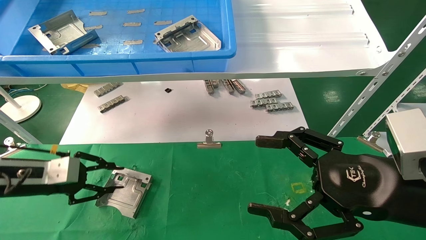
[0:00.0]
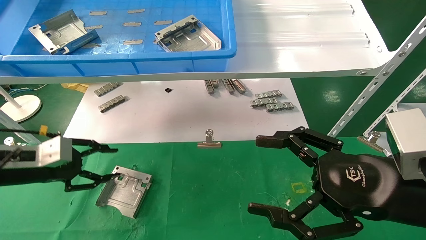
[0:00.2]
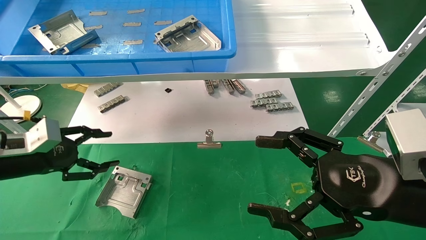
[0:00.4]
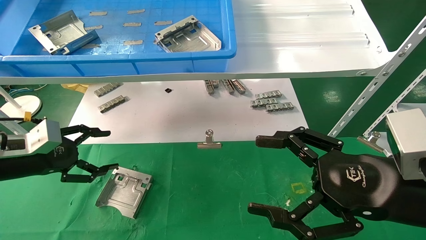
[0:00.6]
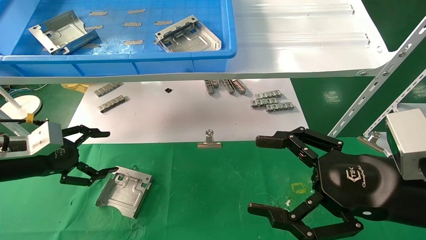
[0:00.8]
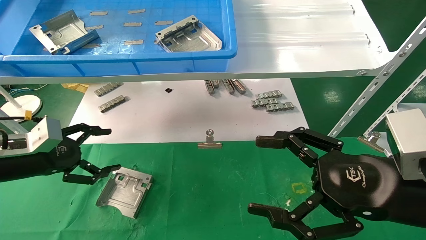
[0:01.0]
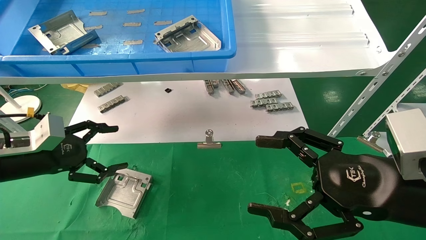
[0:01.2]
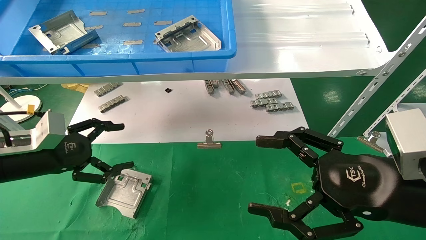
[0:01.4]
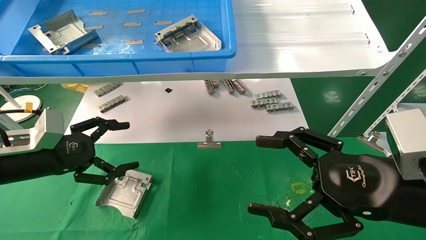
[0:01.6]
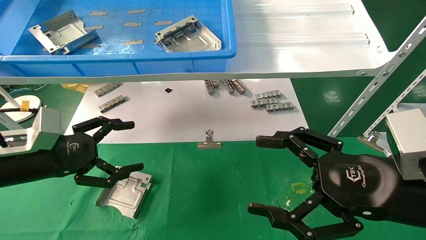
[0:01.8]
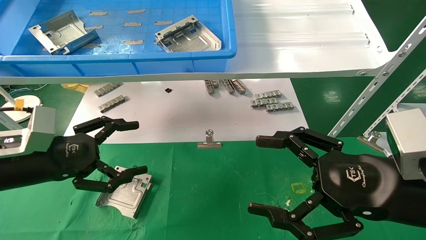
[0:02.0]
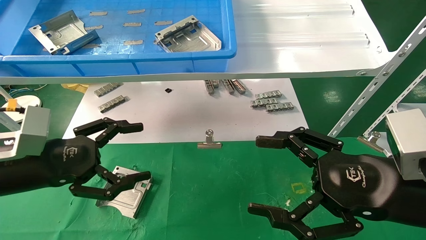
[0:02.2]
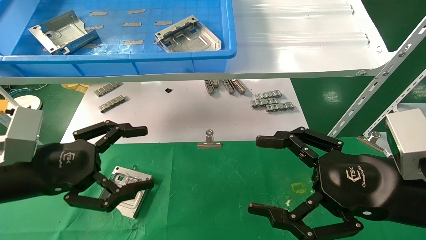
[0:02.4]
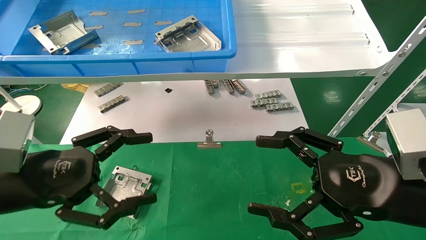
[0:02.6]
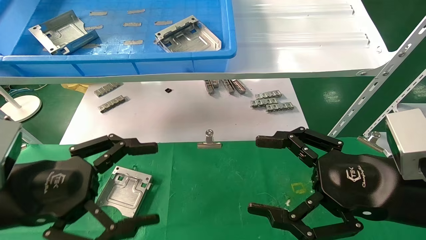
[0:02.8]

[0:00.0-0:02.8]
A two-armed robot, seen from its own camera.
Task of the whole recording: use the mechanical arm to pick up the parts and place them on the table.
0:00.0 to 0:01.4: The left gripper opens.
0:01.4 to 0:02.8: The left gripper heads backward and to the right, covering approximately 15 cm.

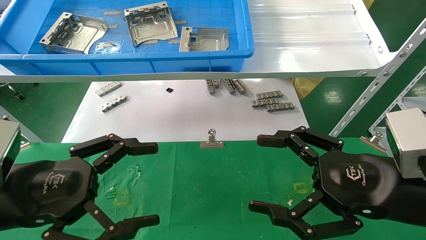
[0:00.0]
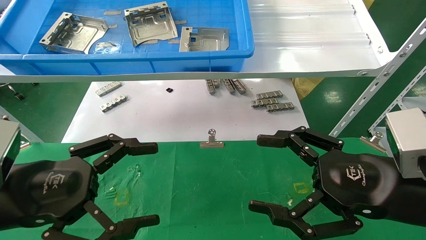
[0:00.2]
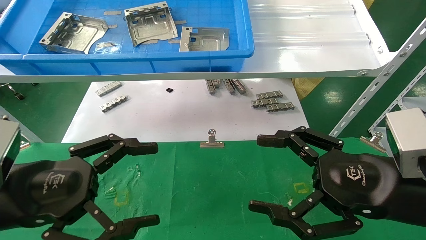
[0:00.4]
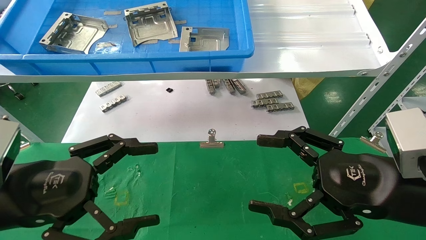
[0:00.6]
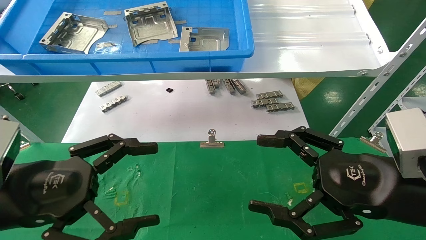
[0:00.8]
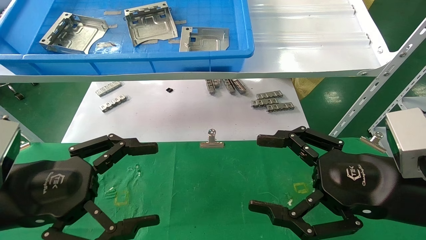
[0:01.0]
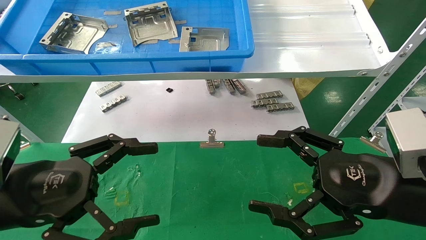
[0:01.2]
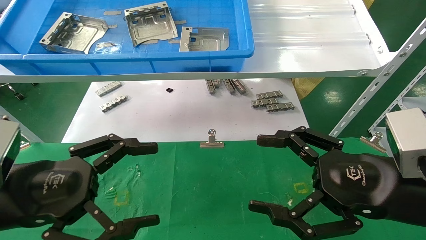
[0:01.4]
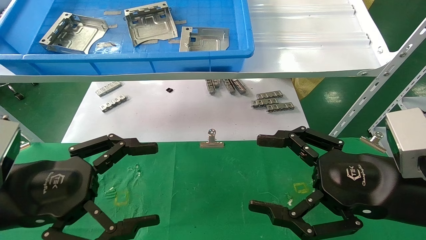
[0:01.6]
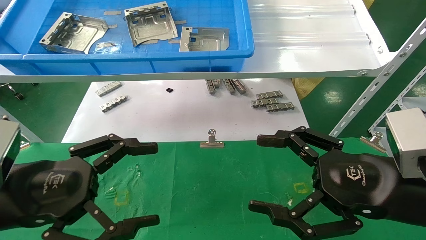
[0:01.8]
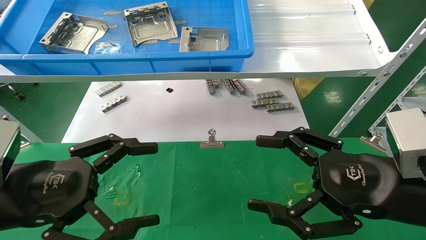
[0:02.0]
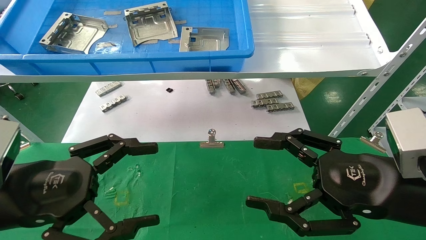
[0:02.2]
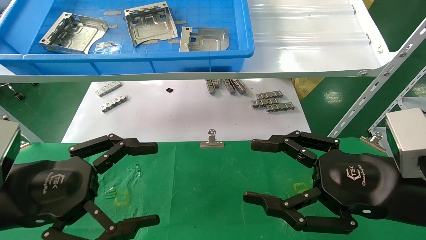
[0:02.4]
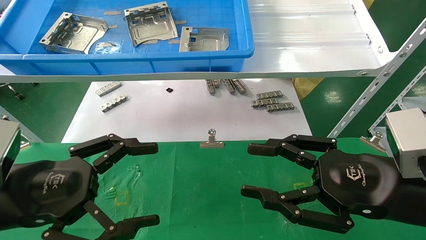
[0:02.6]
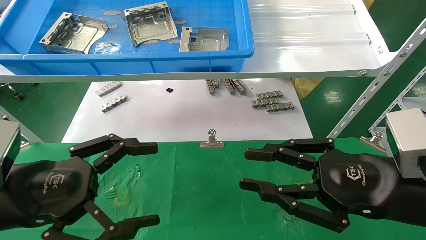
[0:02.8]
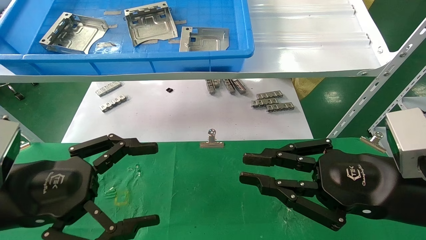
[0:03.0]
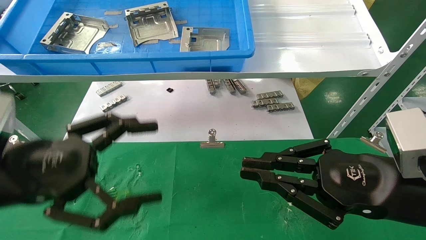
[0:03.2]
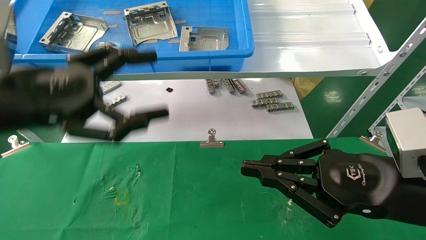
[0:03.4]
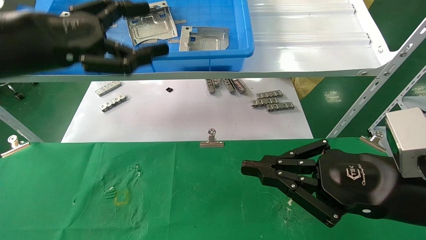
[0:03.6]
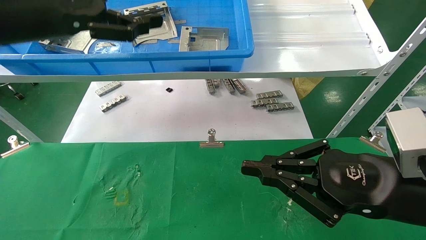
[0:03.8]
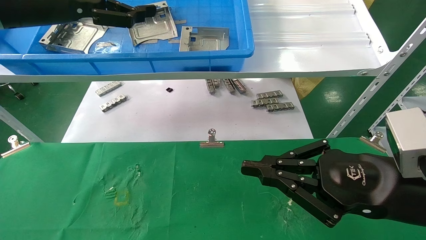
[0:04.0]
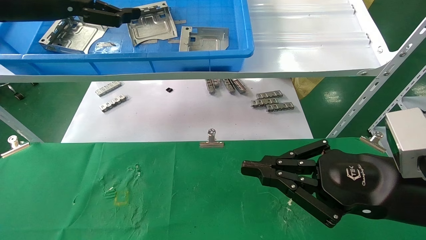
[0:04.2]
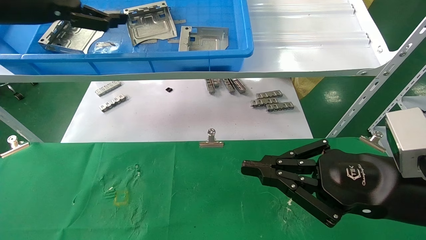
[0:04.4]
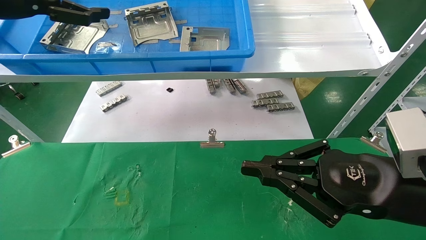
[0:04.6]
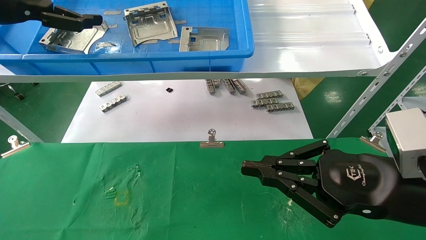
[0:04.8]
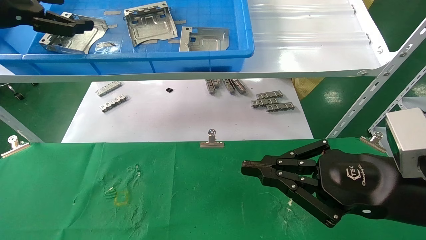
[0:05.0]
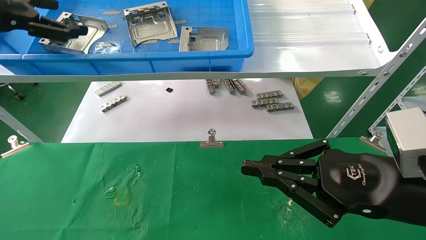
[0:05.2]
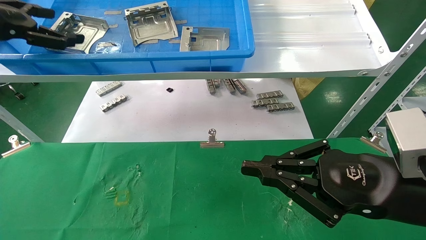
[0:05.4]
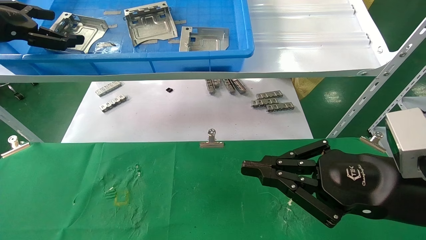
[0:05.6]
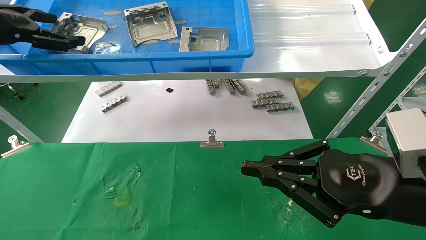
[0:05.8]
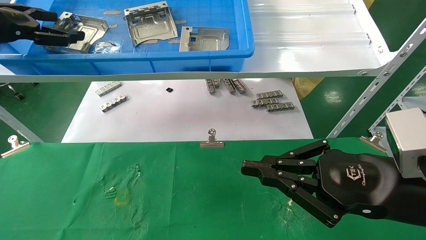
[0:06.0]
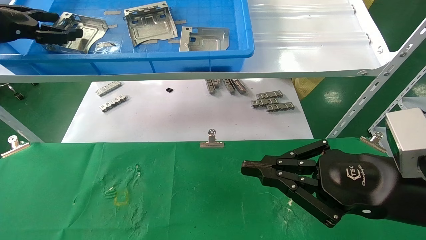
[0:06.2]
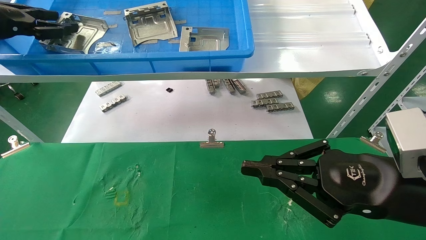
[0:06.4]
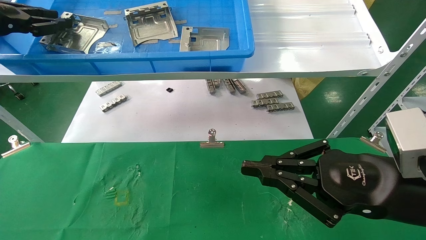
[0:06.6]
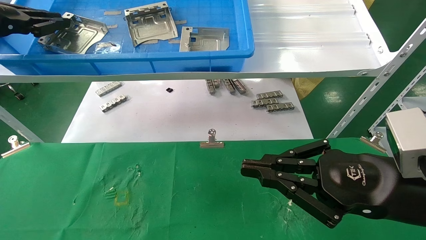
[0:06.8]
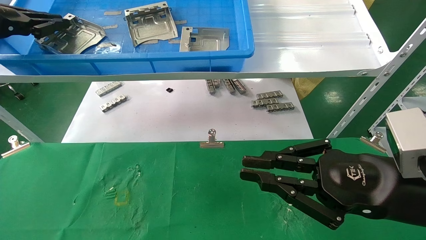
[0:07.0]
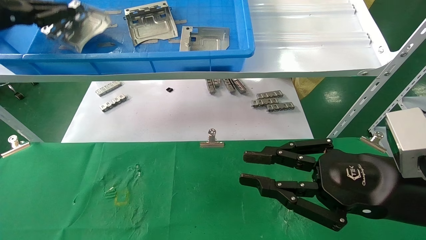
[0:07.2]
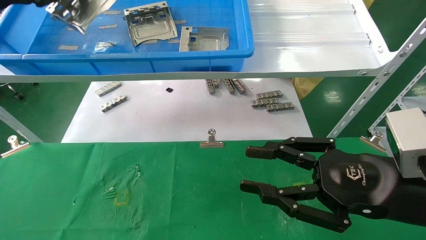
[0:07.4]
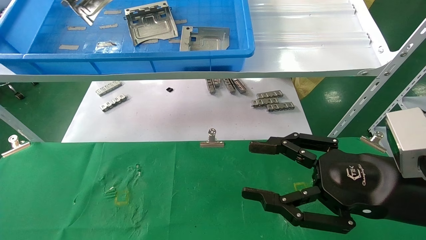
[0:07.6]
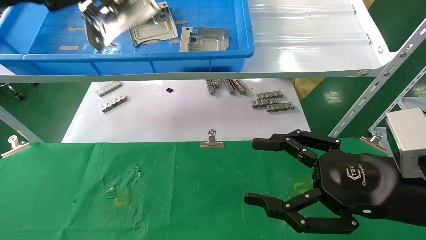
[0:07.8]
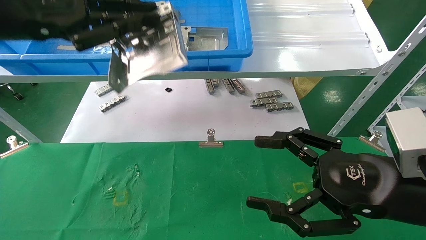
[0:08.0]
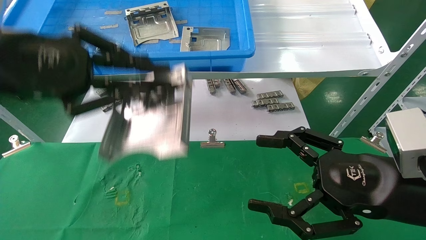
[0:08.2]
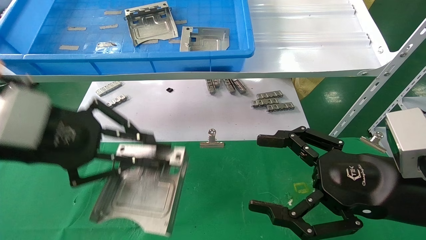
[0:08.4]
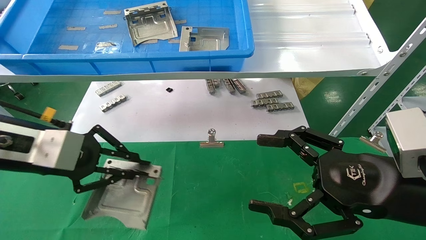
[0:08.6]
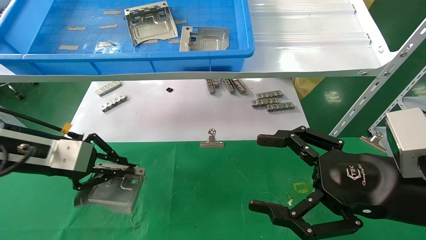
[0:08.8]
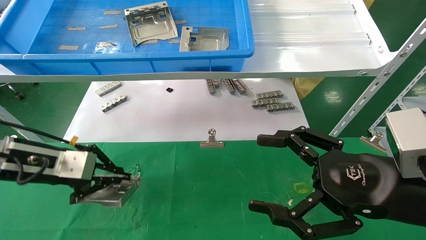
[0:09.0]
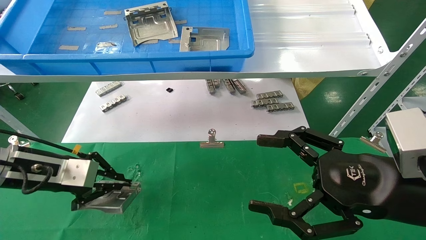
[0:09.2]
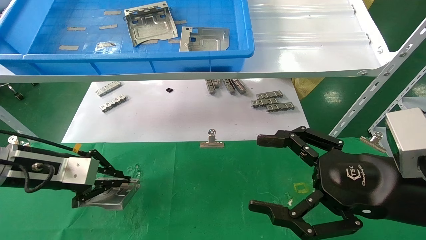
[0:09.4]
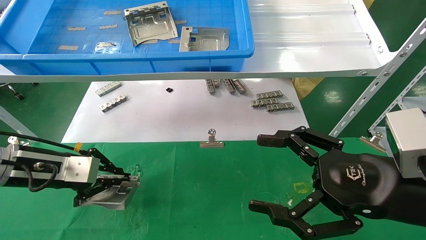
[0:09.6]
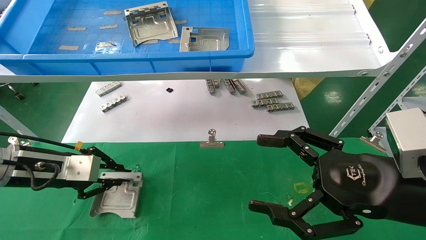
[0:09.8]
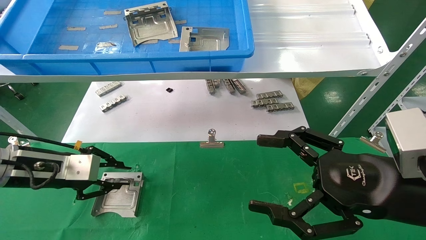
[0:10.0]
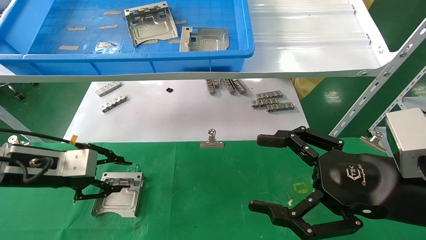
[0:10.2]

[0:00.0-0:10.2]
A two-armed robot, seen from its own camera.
Task of the whole recording: use the mechanical arm to pick up the parts and place them on the table.
Step, 0:03.4 to 0:07.0: Pick up the hard drive bracket from the feeding area.
0:00.0 to 0:01.4: The two grippers keep their place.
0:01.4 to 0:03.0: The right gripper closes.
0:03.0 to 0:04.4: The left gripper moves upward and forward, roughly 25 cm.
0:04.4 to 0:05.8: The left gripper heads to the left, covering approximately 5 cm.
0:05.8 to 0:07.2: The left gripper closes.
0:07.2 to 0:08.8: The left gripper is displaced downward and to the right by approximately 20 cm. Meanwhile the right gripper opens its fingers.
0:08.8 to 0:10.2: The grippers make only small movements.

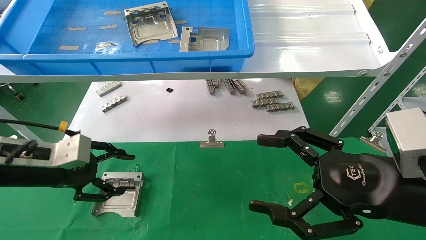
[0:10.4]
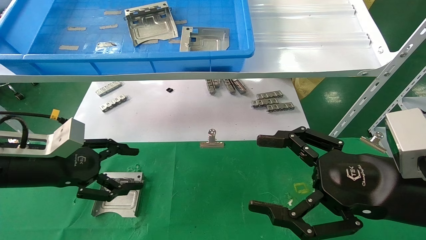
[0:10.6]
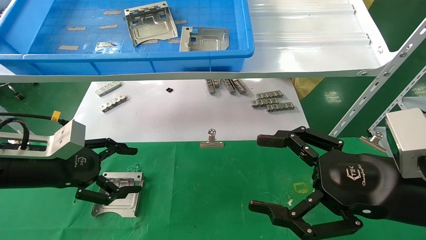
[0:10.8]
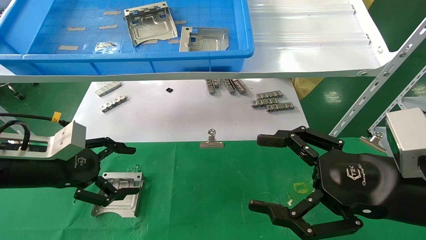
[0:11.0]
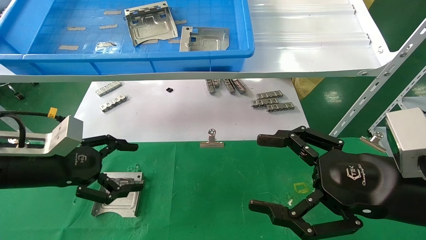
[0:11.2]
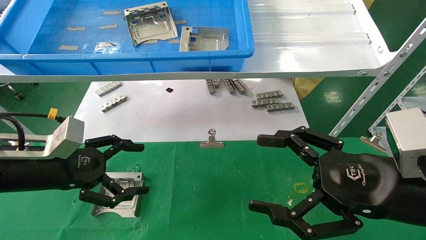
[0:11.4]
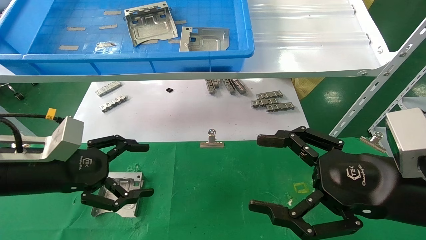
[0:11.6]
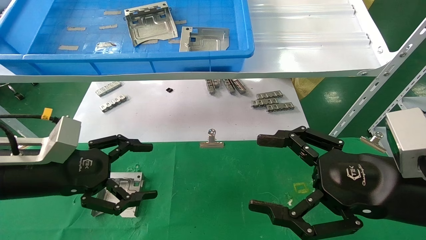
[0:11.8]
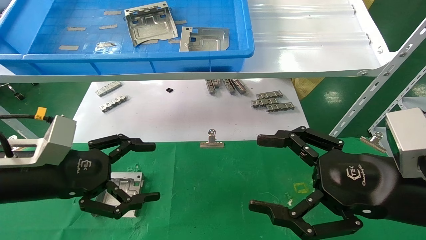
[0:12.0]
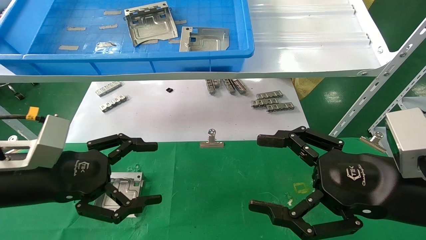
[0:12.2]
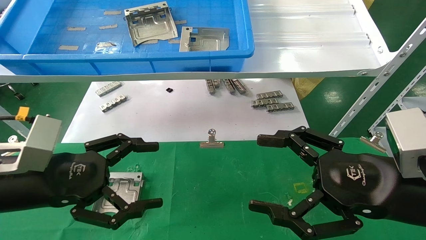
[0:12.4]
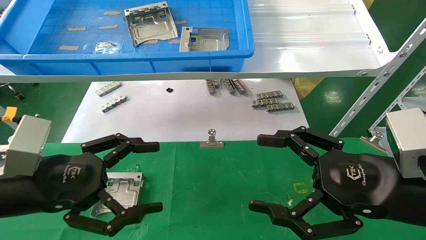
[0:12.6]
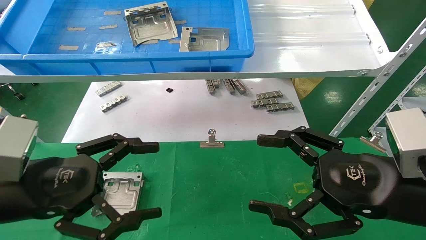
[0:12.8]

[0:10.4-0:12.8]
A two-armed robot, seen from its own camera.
Task of the whole recording: use the mechanical arm to pick up the parts and place them on the table.
0:10.4 to 0:11.6: The left gripper opens up.
0:11.6 to 0:12.8: The left gripper heads backward, covering approximately 5 cm.
